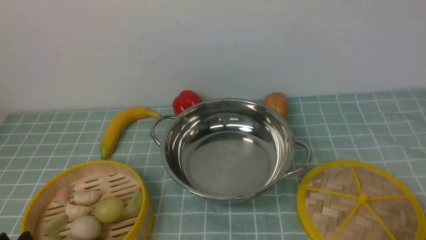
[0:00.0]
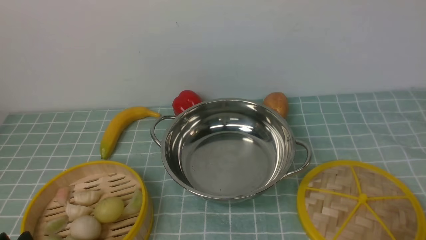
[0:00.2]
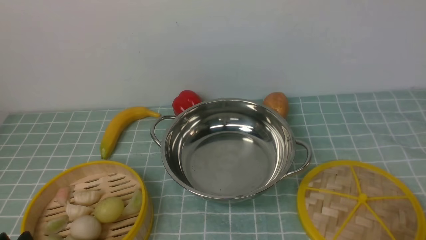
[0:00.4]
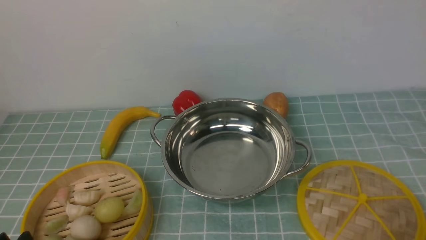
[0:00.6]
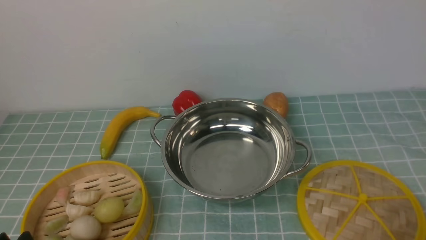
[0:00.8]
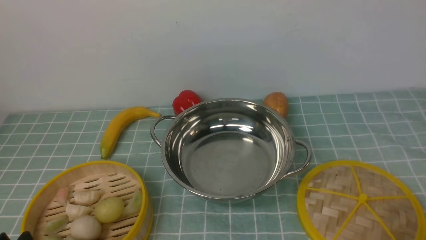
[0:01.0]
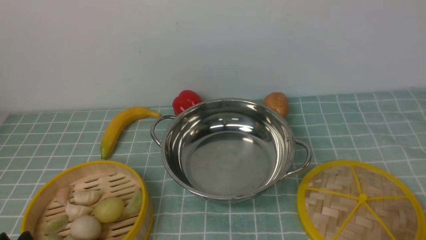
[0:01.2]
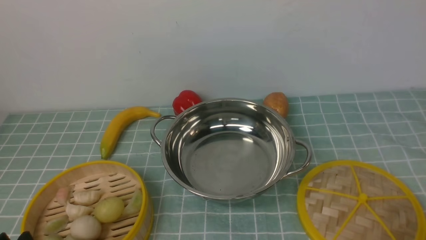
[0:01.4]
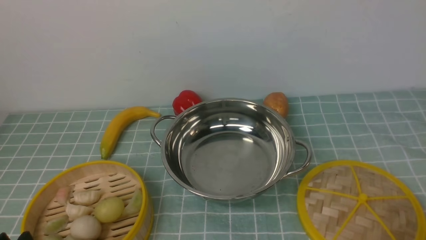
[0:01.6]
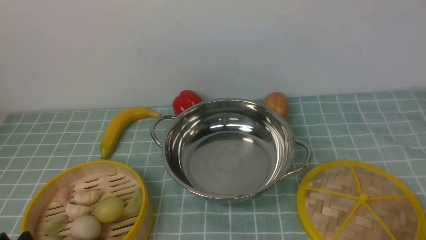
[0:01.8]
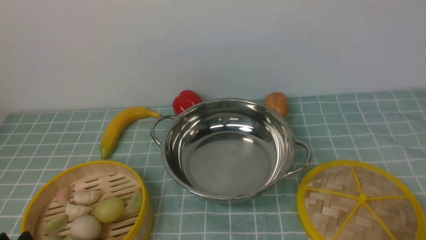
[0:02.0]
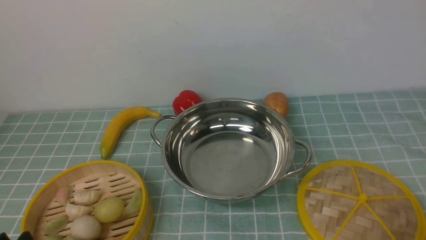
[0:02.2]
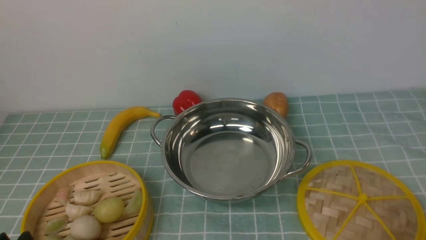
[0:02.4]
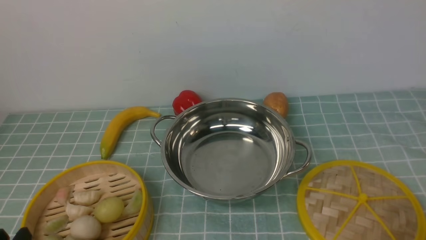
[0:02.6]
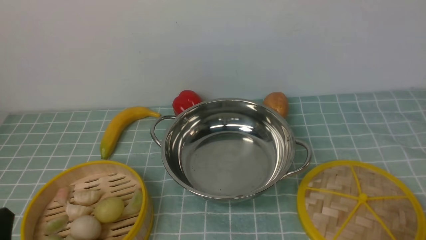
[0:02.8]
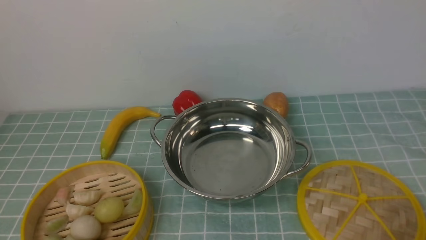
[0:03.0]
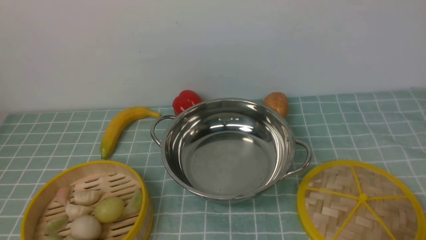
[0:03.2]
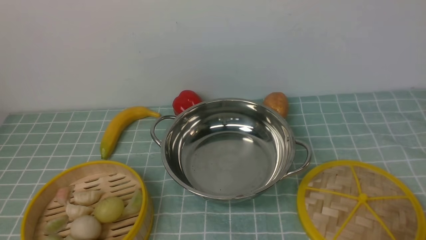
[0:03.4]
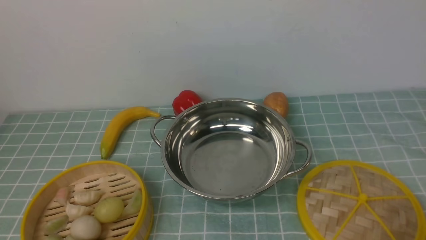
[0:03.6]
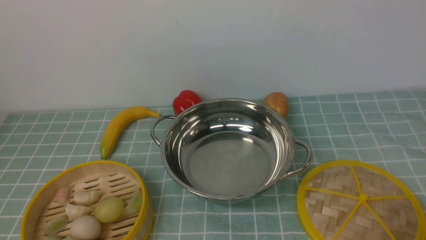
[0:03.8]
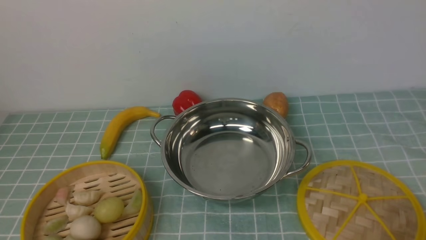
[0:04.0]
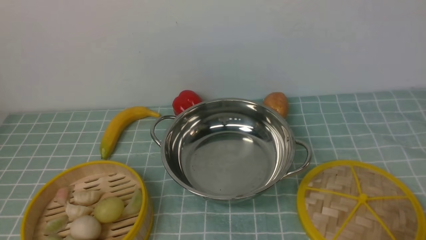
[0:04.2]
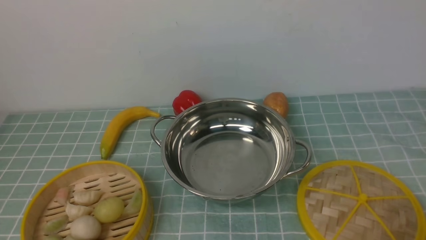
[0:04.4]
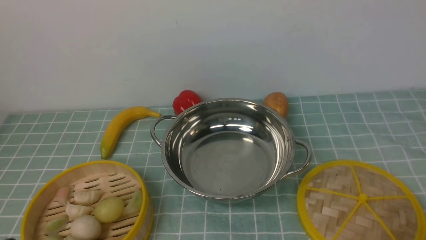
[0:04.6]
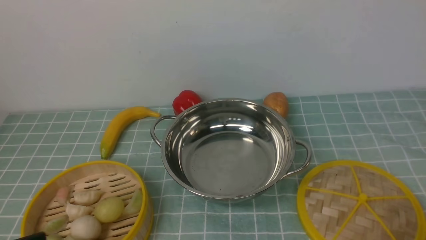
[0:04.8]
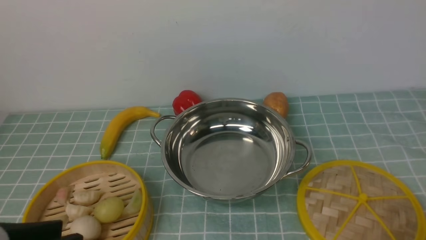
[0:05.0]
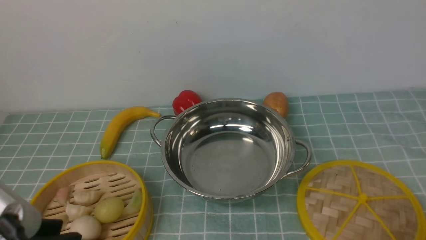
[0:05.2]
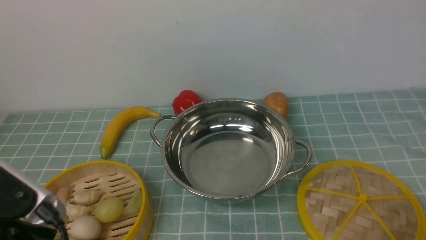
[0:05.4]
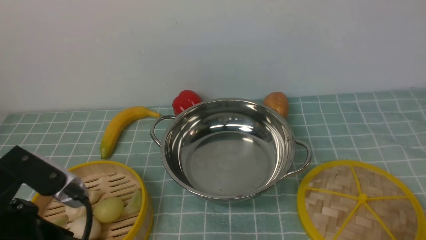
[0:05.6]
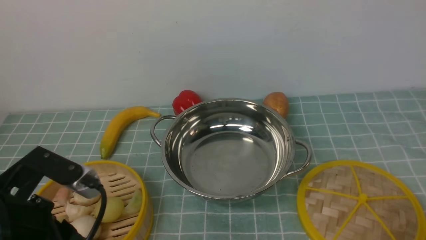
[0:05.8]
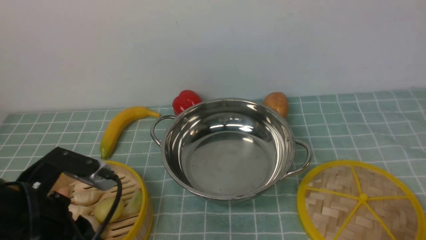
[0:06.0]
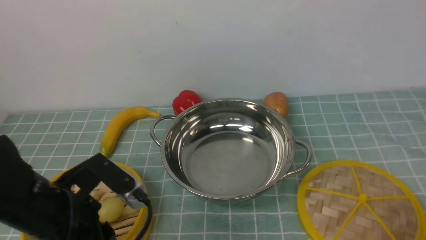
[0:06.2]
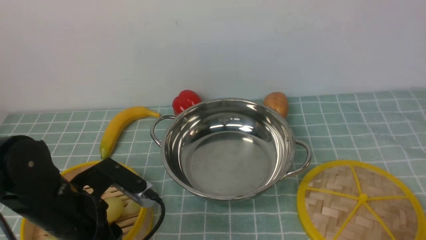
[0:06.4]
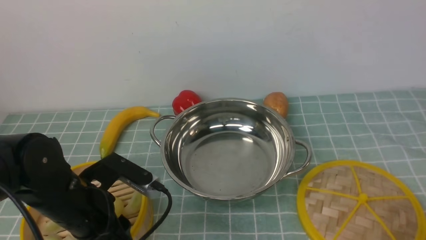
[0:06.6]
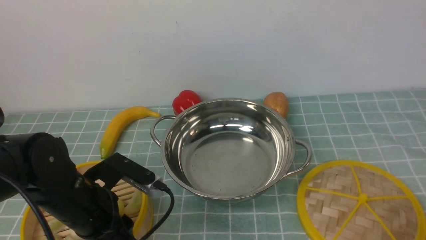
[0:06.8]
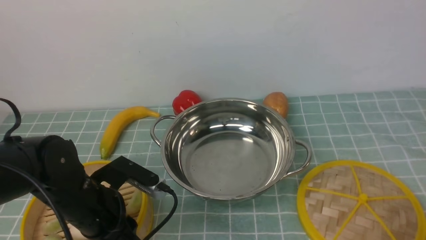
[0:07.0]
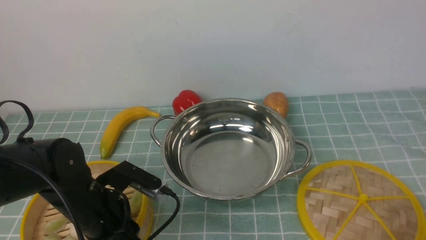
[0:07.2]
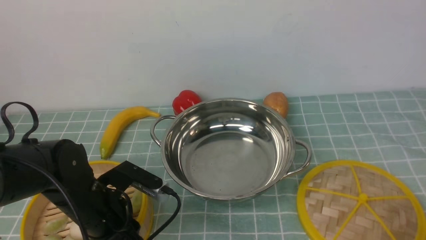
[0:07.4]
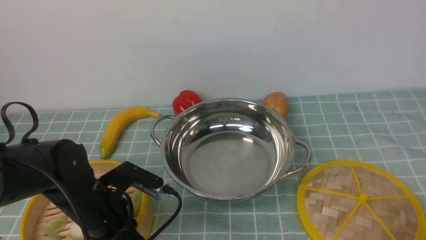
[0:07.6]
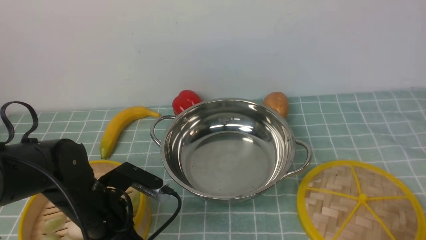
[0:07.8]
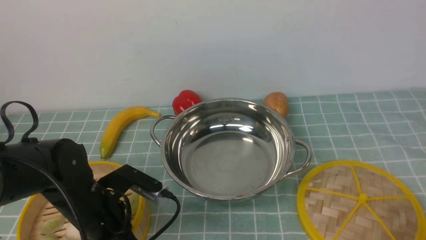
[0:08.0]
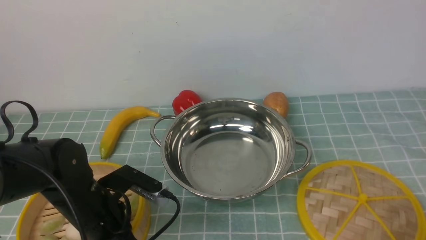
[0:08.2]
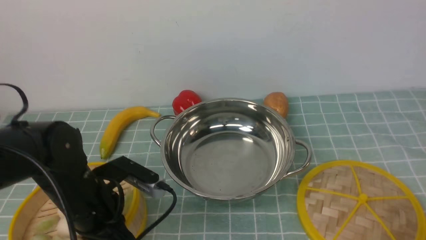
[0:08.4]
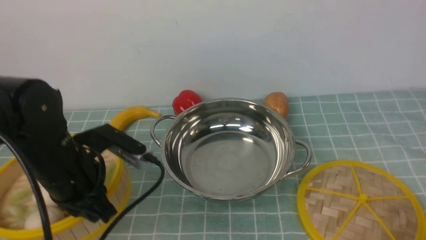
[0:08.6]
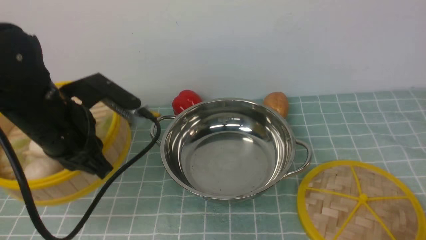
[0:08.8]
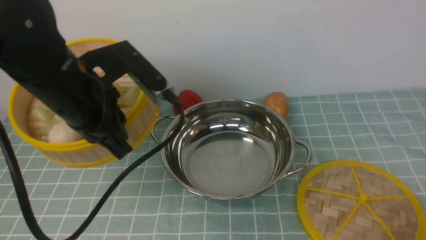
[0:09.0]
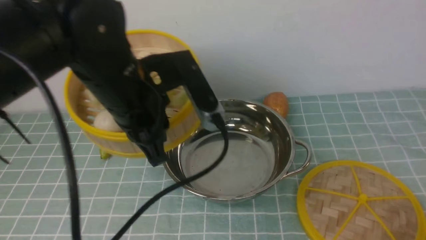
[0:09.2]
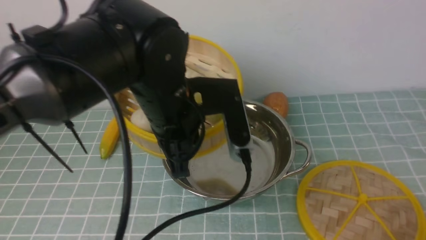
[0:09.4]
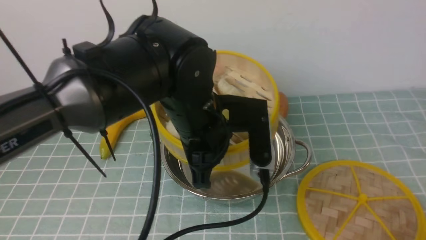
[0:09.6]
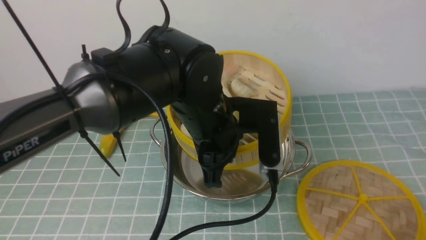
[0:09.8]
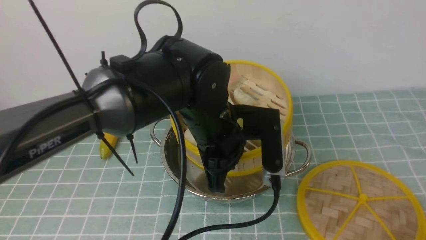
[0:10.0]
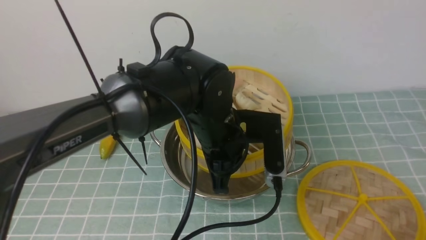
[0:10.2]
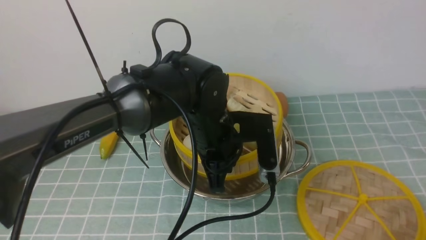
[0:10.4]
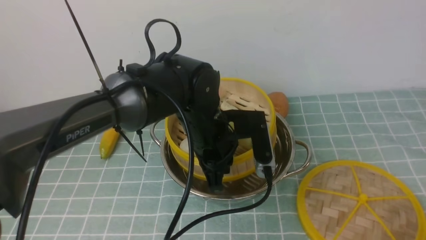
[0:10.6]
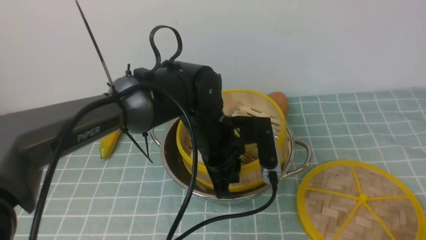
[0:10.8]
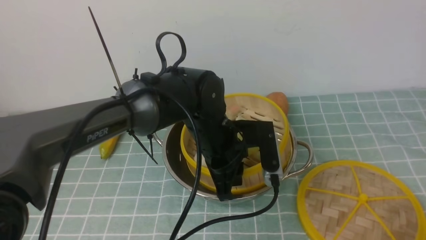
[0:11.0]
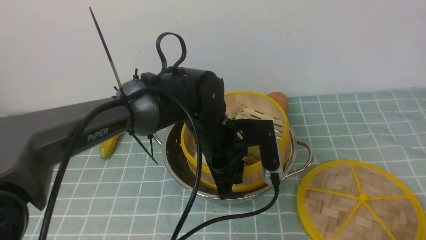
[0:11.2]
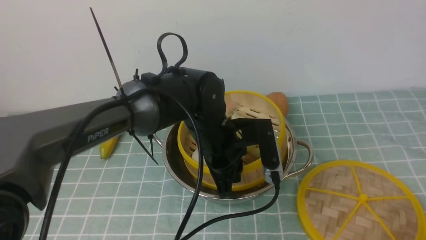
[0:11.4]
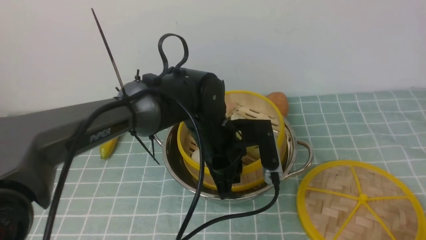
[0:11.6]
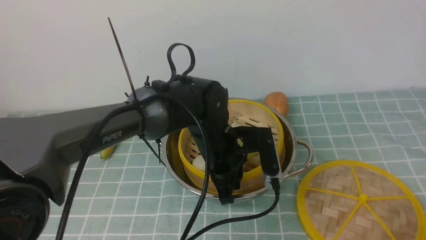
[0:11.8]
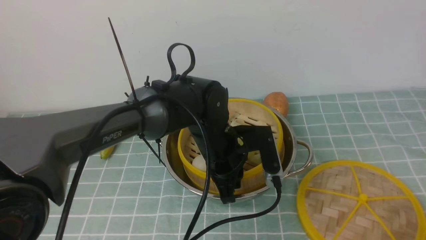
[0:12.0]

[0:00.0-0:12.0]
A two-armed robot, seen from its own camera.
Task of the whole recording: place the steamer in the pot on the blue tablecloth, and put the lid on the steamer.
Step, 0.0 to 8.6 s: use the left arm to lift the steamer closest to it.
0.0 to 1.6 s: Both grippers stay put.
4.4 to 6.0 s: The left gripper goes approximately 15 cm forward.
6.0 to 7.6 s: The left gripper is displaced downward and forward by some 10 cm.
7.6 to 9.0 s: The left gripper travels upward by about 15 cm.
9.0 to 10.4 s: The left gripper shifts some 15 cm to the right and downward.
10.4 to 12.0 s: The left gripper shifts by some 5 cm.

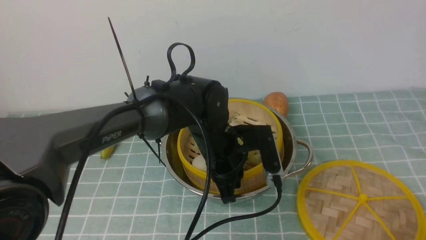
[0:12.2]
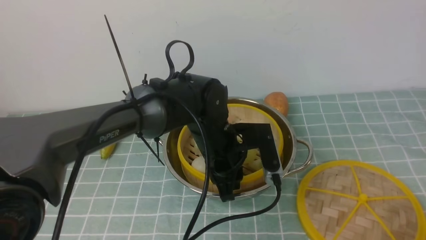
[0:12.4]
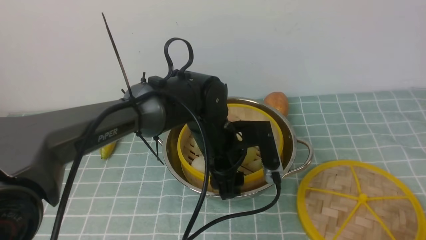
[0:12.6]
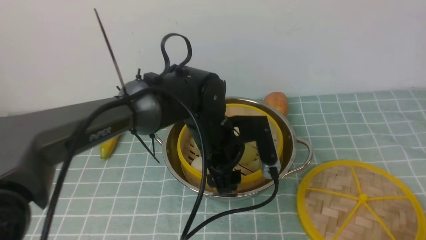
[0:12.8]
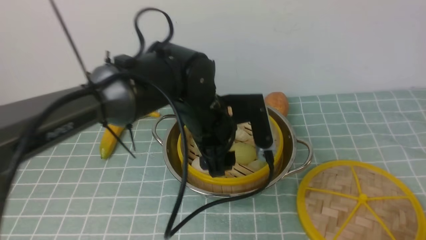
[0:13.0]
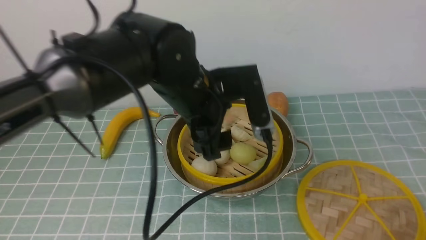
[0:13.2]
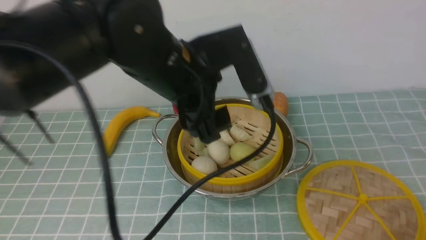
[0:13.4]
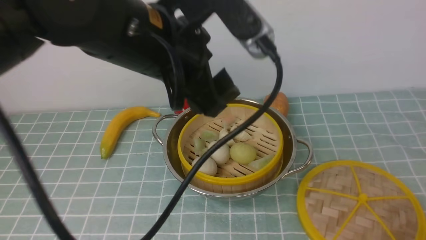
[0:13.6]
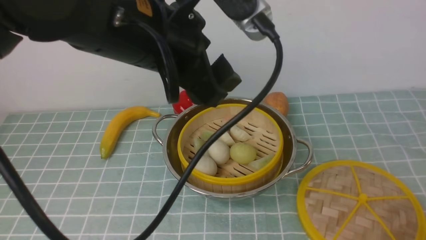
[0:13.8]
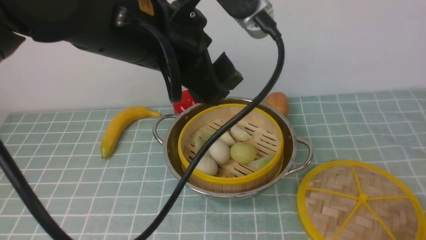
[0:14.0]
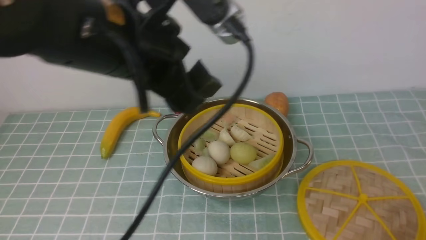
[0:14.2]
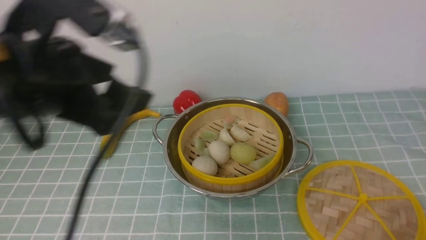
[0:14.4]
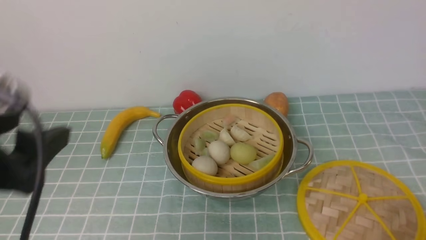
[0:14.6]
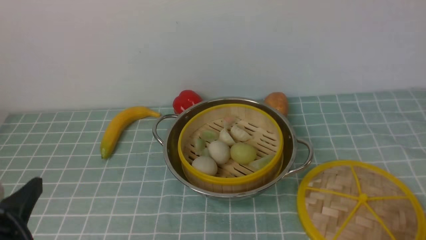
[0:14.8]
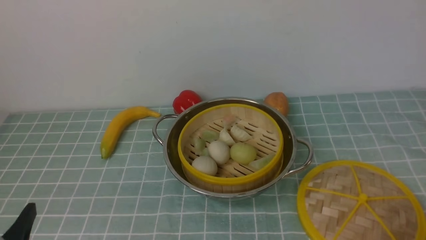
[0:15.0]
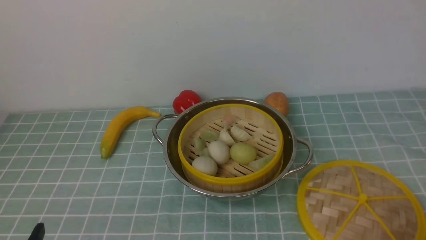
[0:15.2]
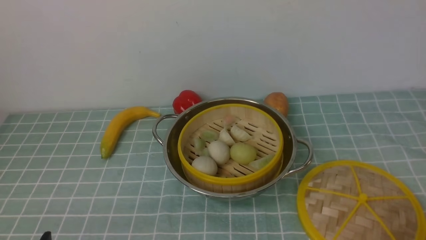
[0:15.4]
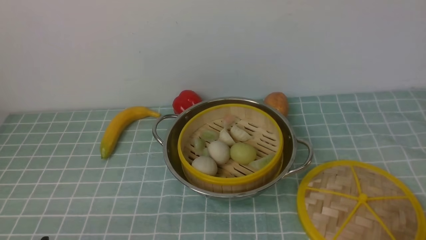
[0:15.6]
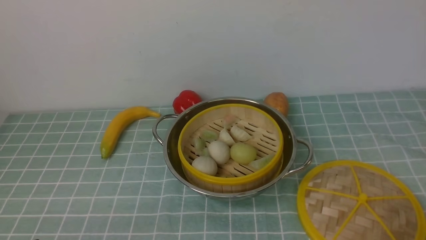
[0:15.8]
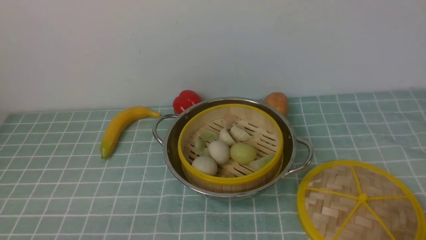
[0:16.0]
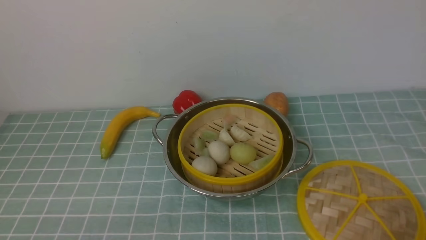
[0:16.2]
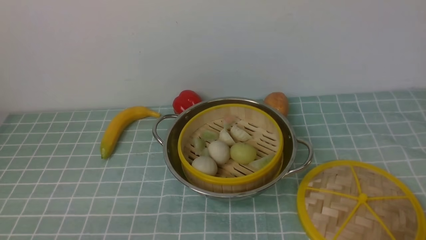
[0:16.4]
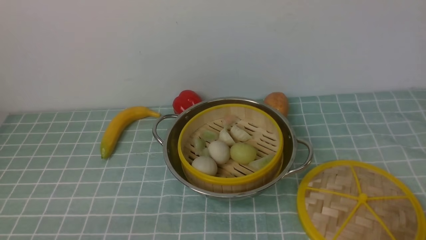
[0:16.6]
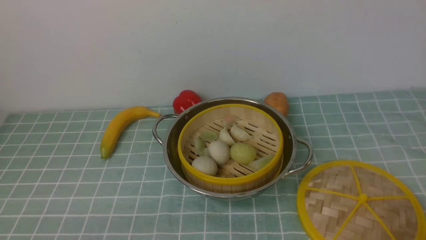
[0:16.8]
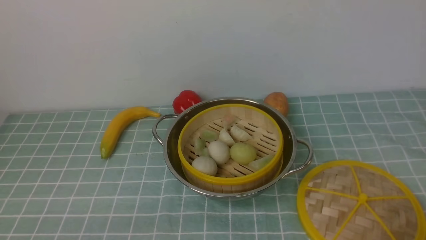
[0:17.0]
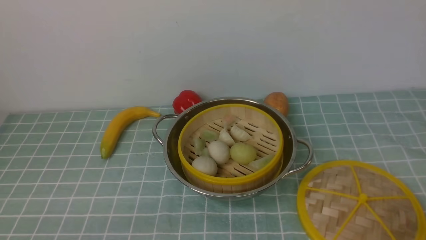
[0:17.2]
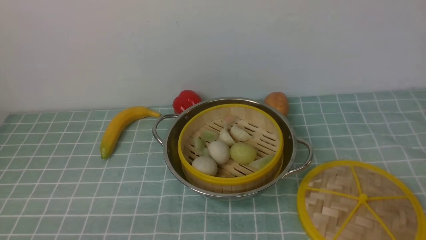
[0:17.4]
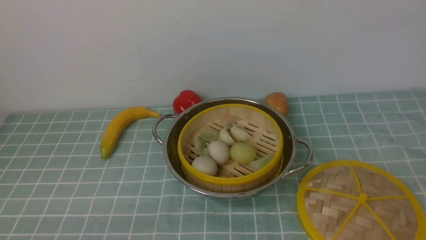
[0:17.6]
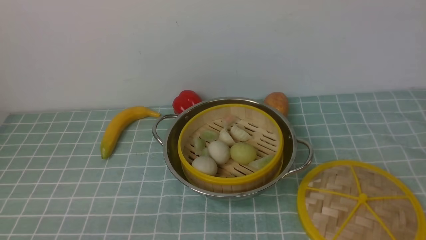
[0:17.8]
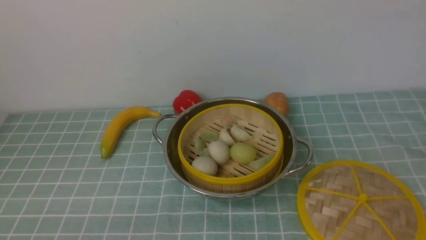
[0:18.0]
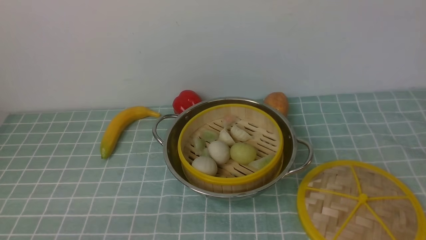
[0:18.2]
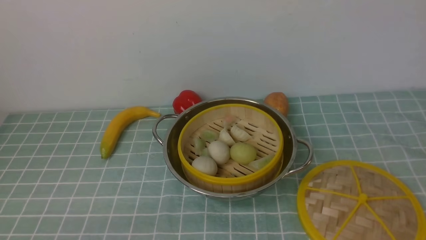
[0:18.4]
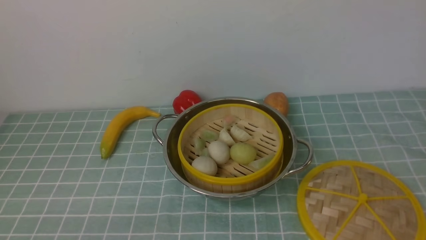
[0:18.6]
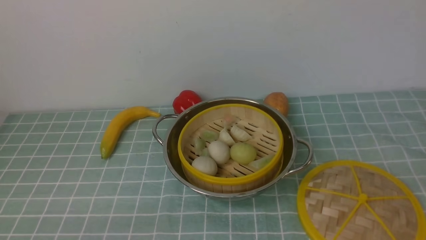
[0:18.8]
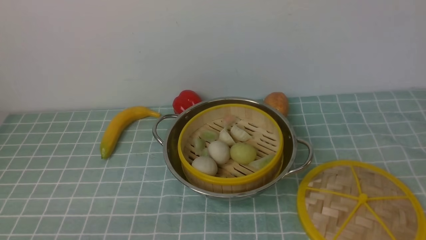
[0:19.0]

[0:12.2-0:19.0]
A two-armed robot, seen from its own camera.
Task of the whole recording: place the steamer in the pot on the blue tablecloth, and put the lid on the steamer.
12.2 to 13.6 s: The left gripper heads upward, covering some 20 cm, and opens up.
13.6 to 15.0 s: The left gripper shifts some 30 cm backward, to the left and downward.
15.0 to 16.2 s: The left gripper travels downward by roughly 5 cm.
